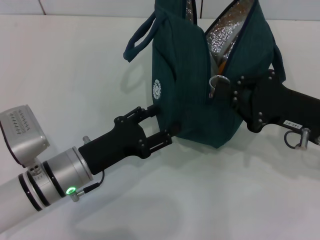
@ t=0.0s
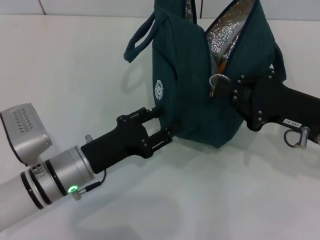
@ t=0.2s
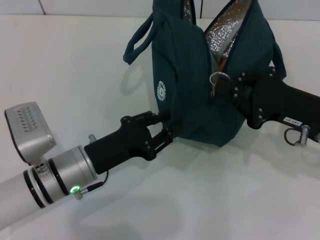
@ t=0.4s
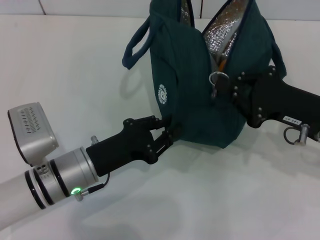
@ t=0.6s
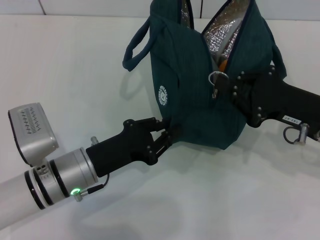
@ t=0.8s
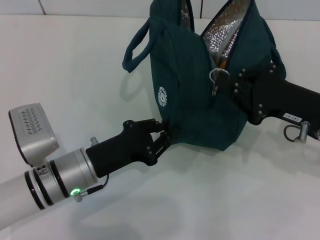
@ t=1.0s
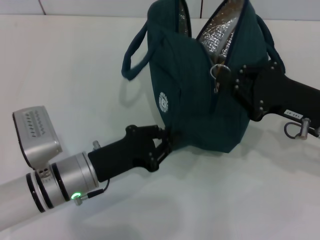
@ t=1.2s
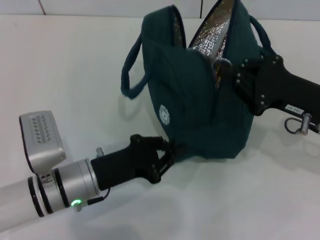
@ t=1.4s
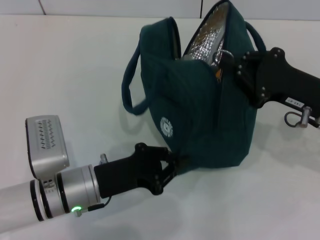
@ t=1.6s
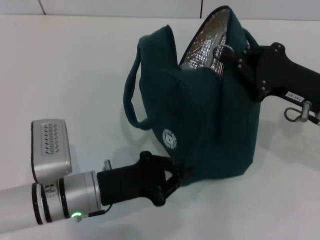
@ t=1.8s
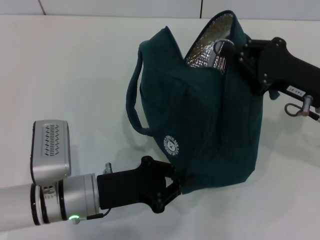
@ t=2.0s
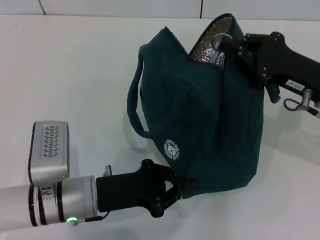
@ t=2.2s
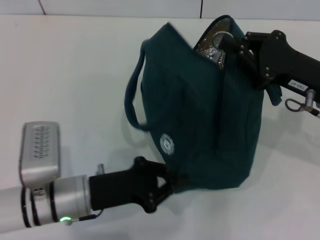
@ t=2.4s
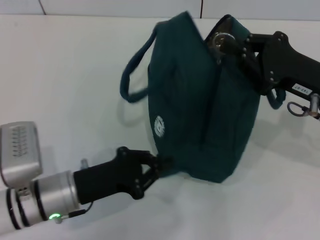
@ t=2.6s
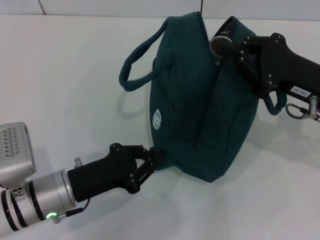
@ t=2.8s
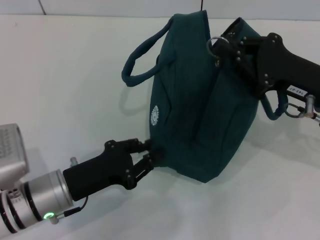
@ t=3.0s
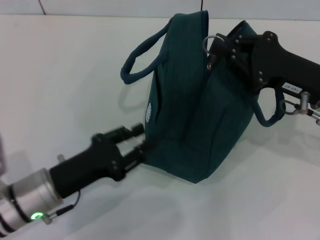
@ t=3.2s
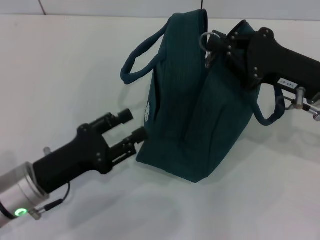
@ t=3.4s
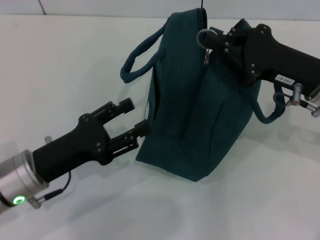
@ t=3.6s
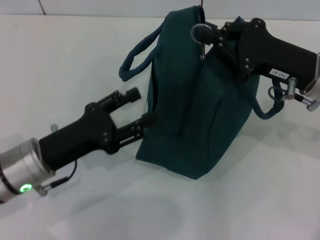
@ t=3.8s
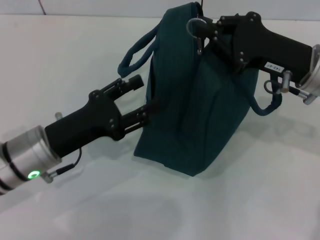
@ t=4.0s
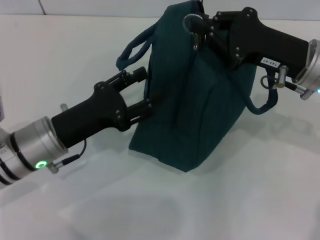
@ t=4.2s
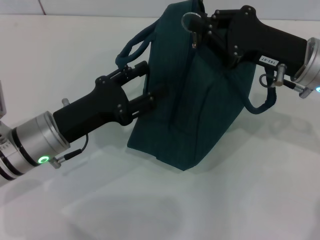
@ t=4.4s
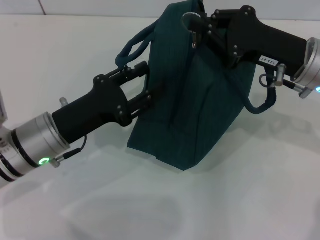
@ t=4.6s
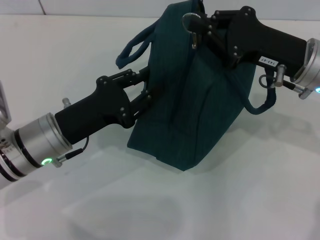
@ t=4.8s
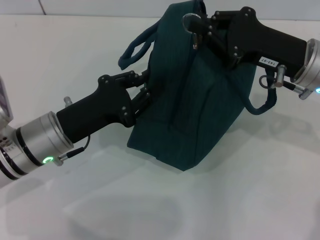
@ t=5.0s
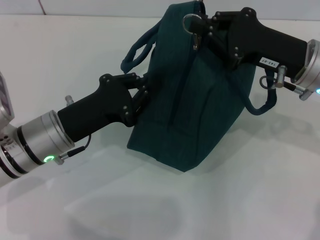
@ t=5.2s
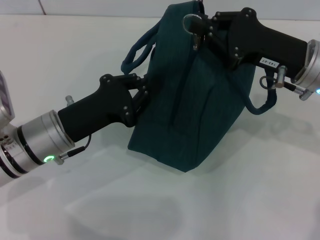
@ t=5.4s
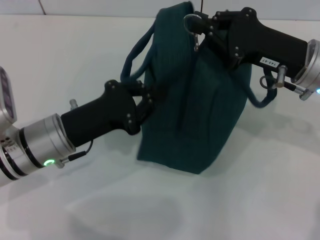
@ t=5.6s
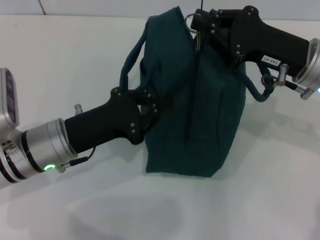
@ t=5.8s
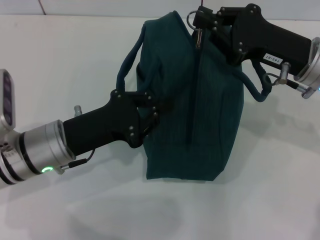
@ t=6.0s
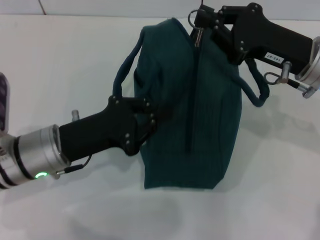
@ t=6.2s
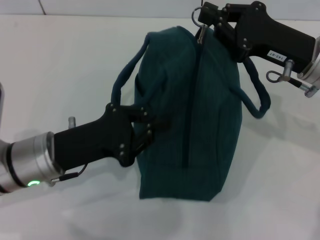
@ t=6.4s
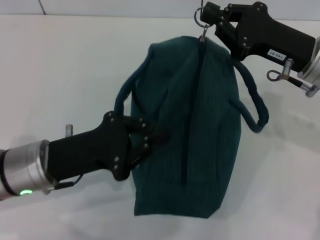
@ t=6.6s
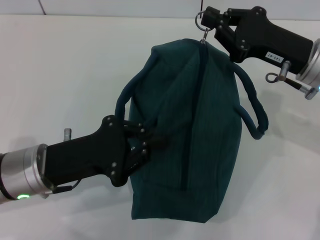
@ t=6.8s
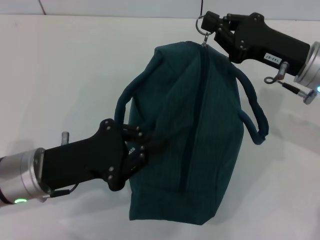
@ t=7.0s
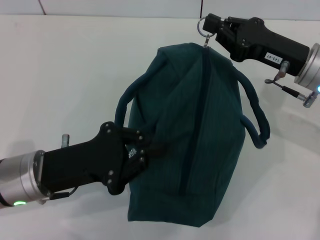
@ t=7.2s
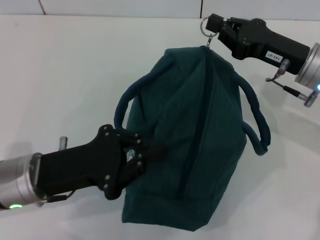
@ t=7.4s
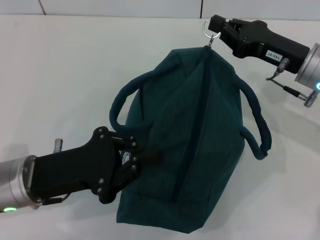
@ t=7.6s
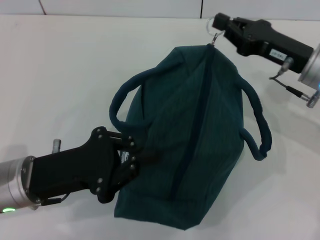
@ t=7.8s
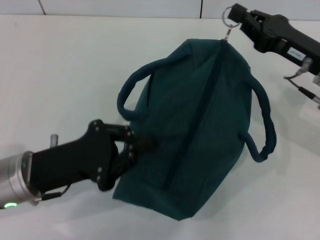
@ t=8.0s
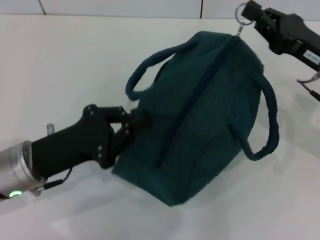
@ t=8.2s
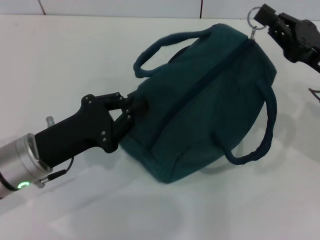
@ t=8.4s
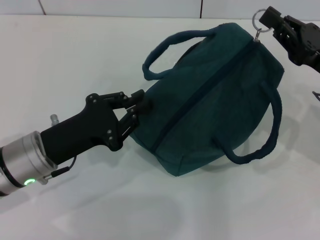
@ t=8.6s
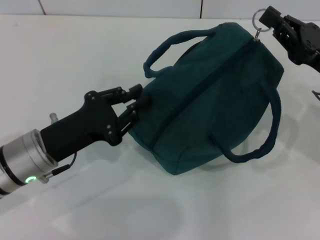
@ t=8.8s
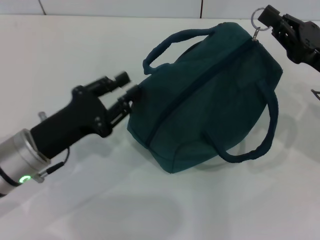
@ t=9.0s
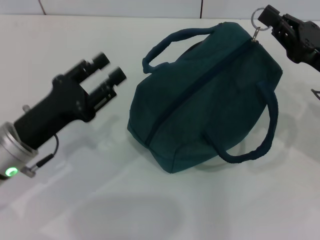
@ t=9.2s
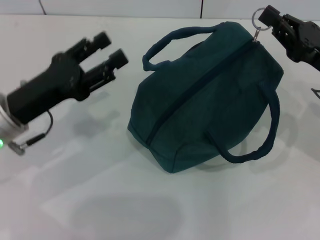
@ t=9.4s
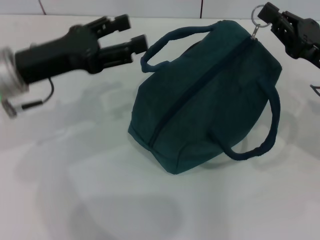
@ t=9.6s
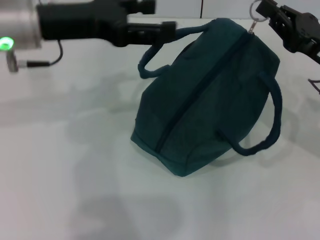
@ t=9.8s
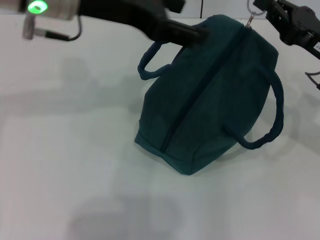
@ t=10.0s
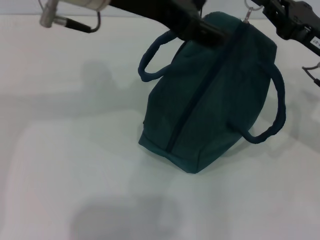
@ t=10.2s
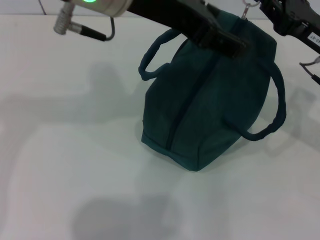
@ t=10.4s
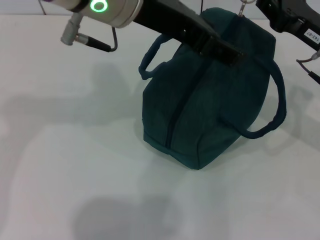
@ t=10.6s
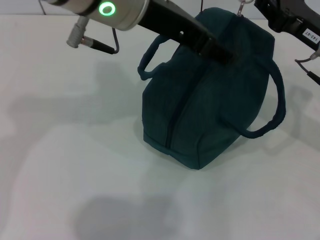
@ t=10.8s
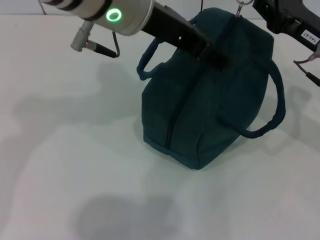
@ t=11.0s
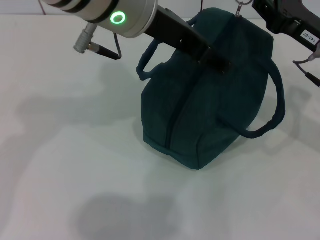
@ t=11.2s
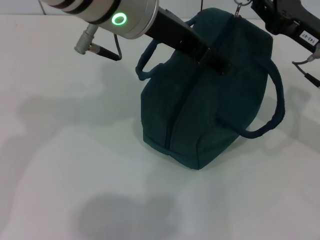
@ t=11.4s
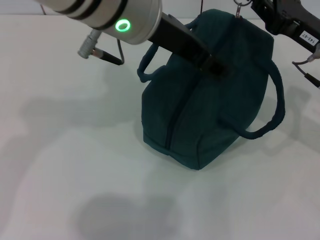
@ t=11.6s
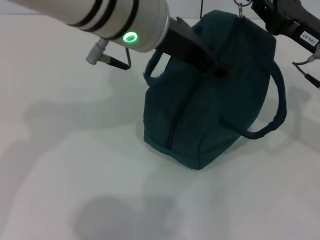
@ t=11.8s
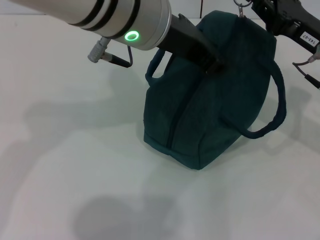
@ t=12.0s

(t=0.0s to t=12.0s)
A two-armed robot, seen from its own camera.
t=0.0s - t=1.6s: The left gripper closes.
t=3.0s - t=4.4s: The left gripper heads upward and forward, covering about 5 cm, and opens its fingers, while the right gripper shifts by roughly 5 cm.
t=4.4s - t=6.0s: The left gripper closes up.
t=6.0s - t=7.6s: The left gripper shifts by some 5 cm.
t=7.6s - t=9.0s: The right gripper moves some 5 cm.
t=9.0s - t=10.4s: The left gripper moves upward and to the right, approximately 30 cm, and opens its fingers.
t=10.4s - t=12.0s: The left gripper closes.

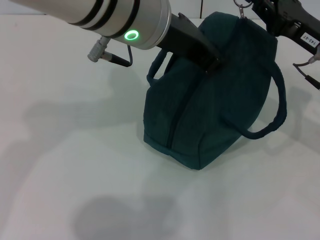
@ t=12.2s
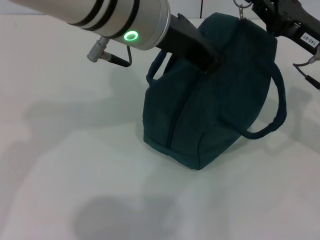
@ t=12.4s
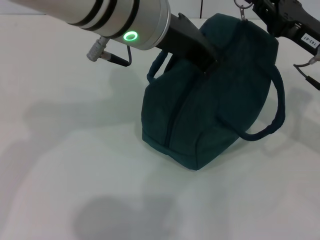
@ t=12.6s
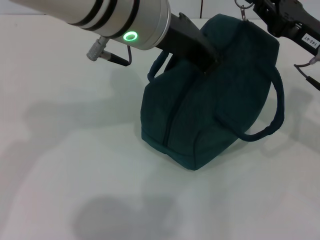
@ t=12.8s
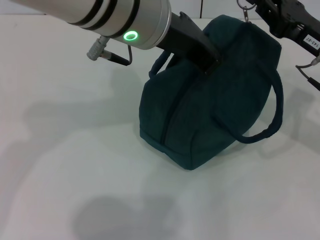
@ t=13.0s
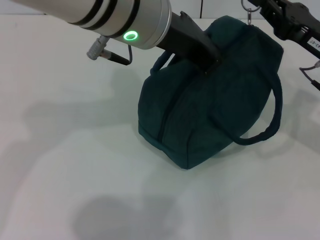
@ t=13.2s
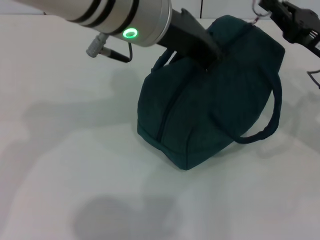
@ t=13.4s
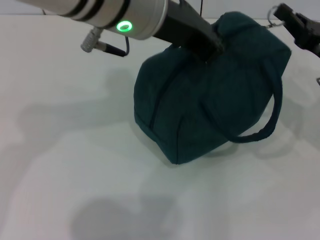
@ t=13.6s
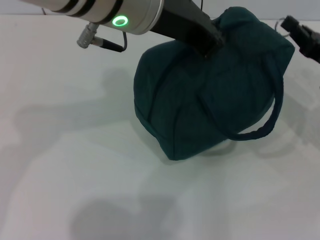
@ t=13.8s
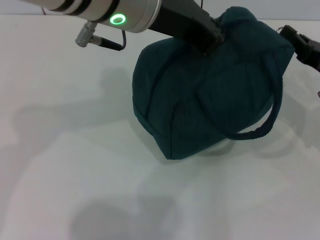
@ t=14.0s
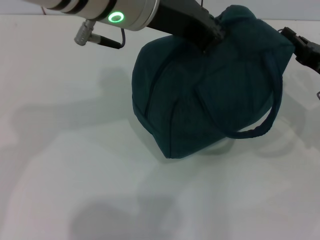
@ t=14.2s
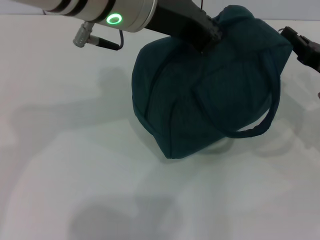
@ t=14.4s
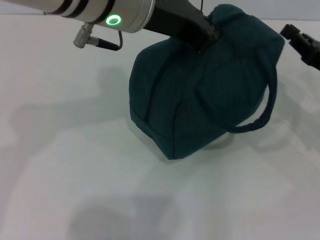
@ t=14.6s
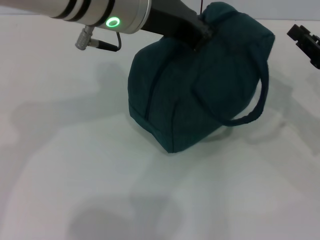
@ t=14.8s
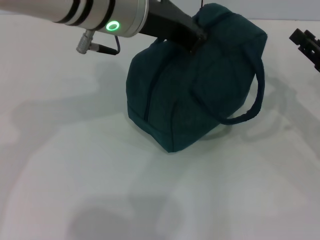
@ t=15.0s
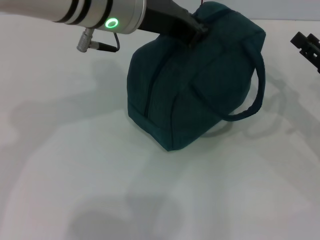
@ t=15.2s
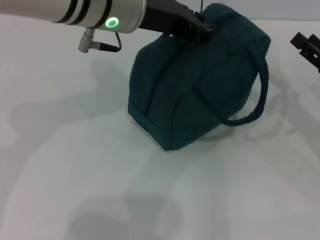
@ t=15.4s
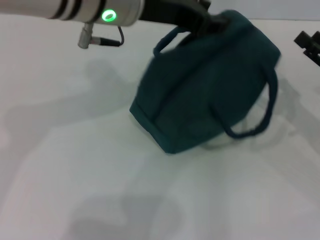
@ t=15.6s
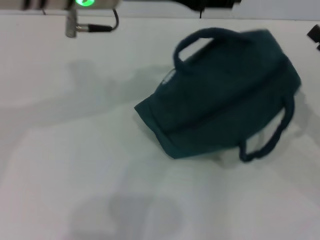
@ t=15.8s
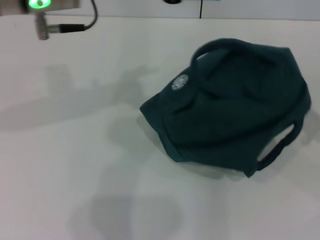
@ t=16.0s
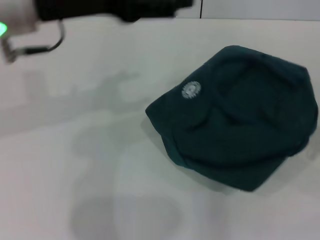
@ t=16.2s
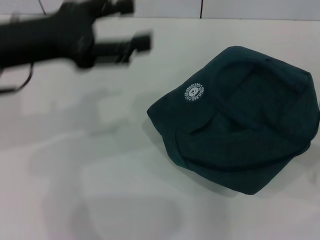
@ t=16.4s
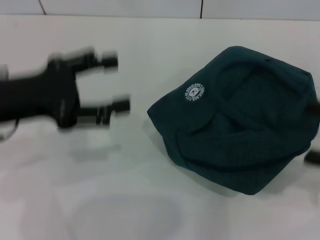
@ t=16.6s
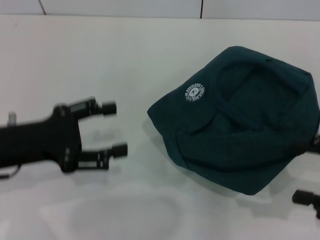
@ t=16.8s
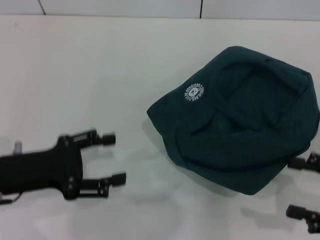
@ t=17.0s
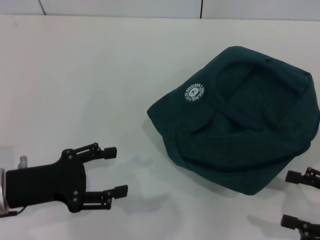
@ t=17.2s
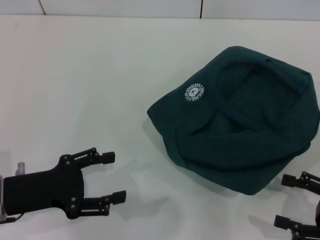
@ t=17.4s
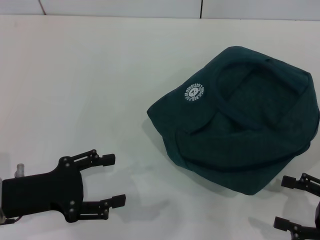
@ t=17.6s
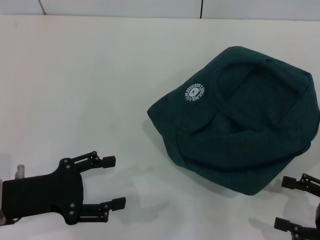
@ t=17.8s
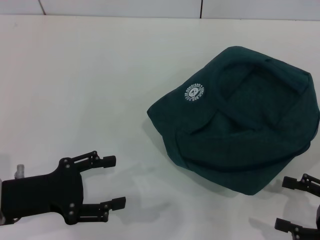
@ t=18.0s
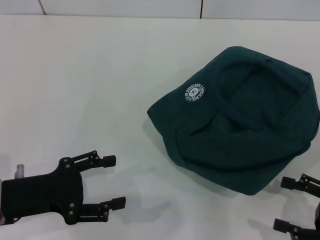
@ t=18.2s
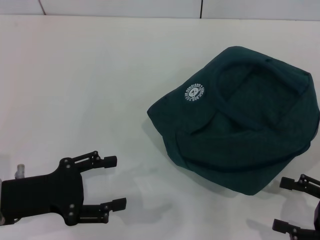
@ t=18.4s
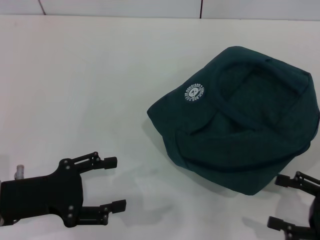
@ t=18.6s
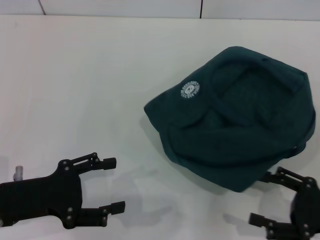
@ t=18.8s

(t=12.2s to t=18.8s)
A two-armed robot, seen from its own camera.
Step, t=12.2s - t=14.6s: Zip up the lunch bag with your right hand.
Step, t=14.8s - t=15.8s: Hold the lunch bag with your left hand.
t=12.2s - t=13.8s: The left gripper closes up, while the right gripper changes place by roughly 5 cm.
t=13.8s - t=15.4s: The right gripper opens its fingers.
t=15.4s - t=17.2s: The right gripper goes roughly 10 cm backward; the left gripper goes approximately 30 cm downward, to the left and backward, and opens.
t=17.2s - t=18.8s: The grippers stay close to where they were, moving slightly.
